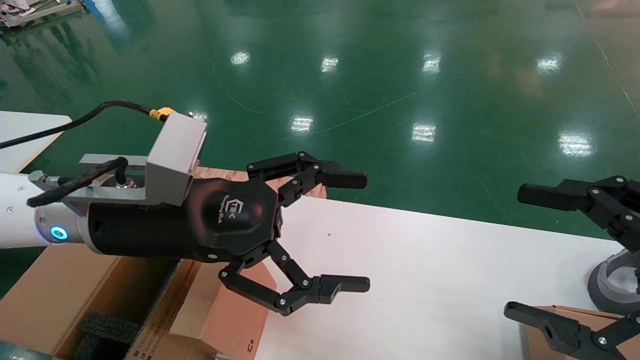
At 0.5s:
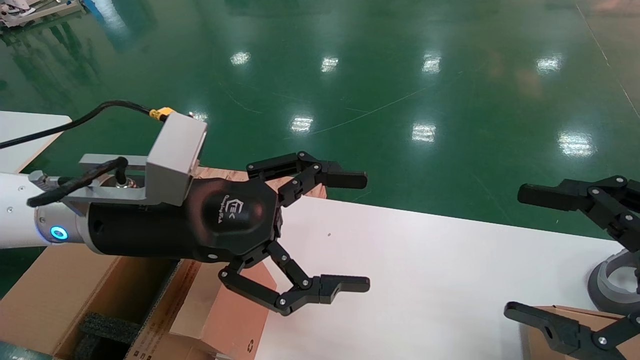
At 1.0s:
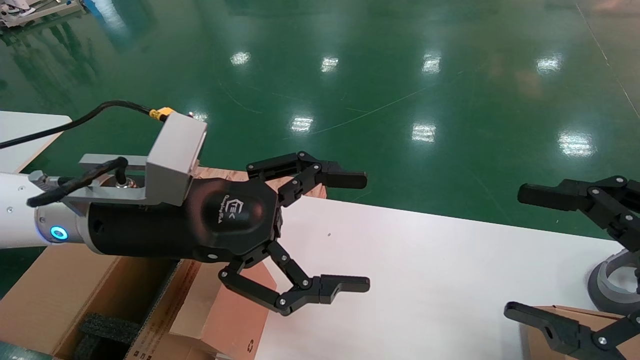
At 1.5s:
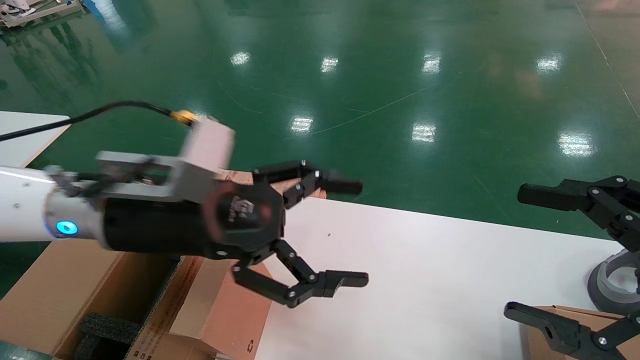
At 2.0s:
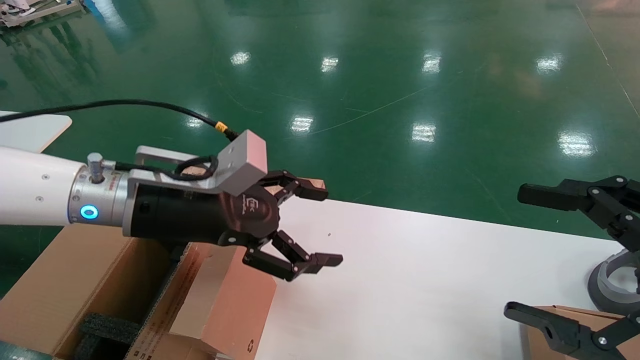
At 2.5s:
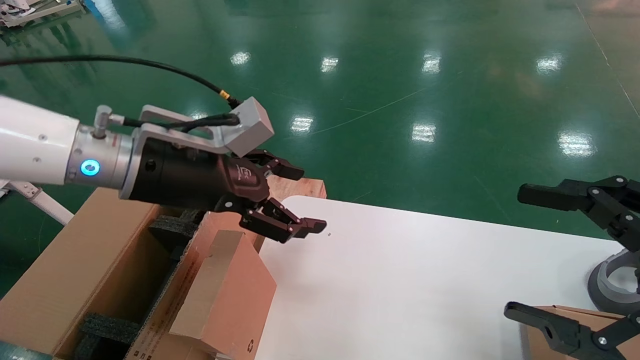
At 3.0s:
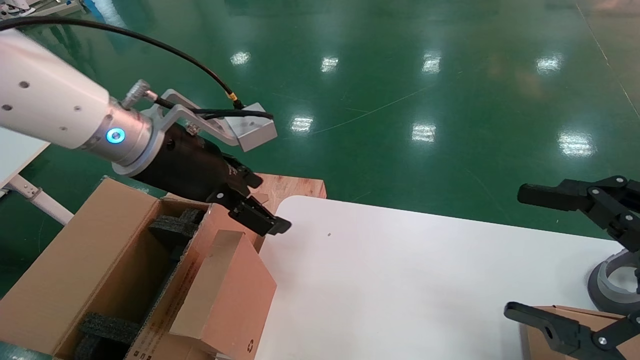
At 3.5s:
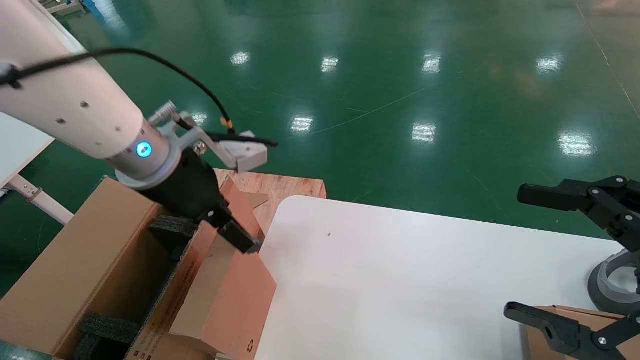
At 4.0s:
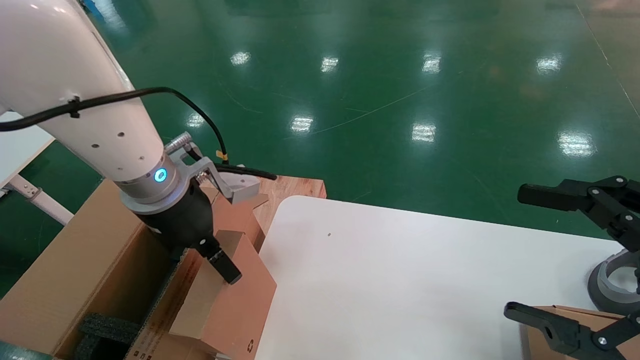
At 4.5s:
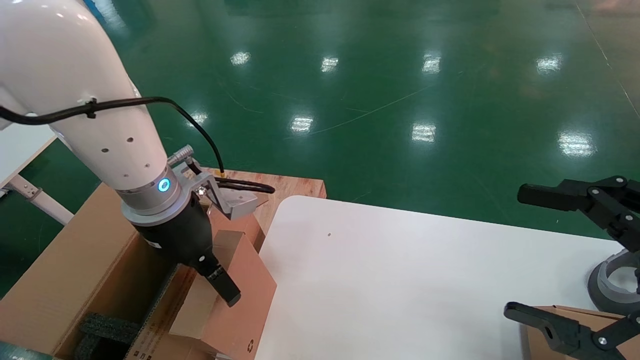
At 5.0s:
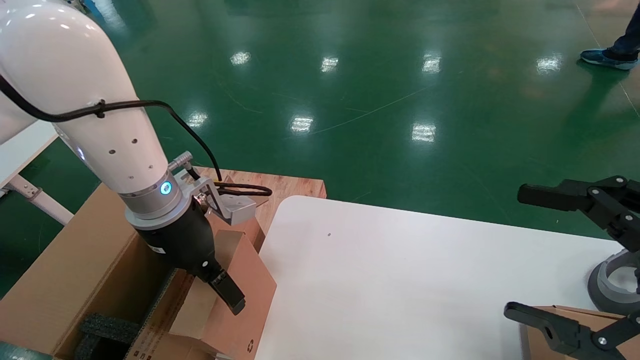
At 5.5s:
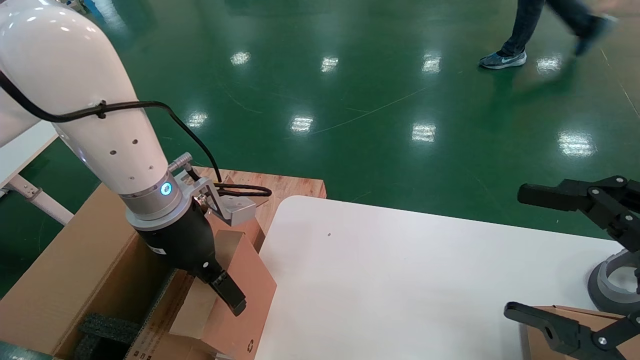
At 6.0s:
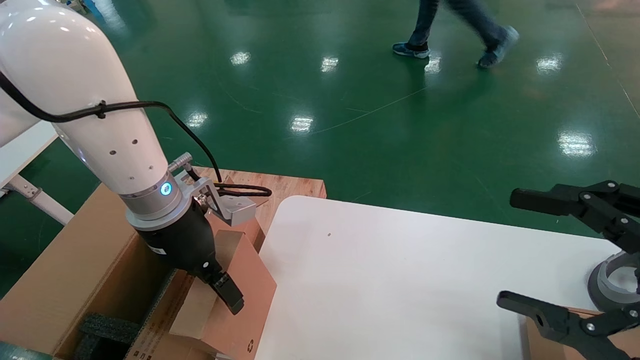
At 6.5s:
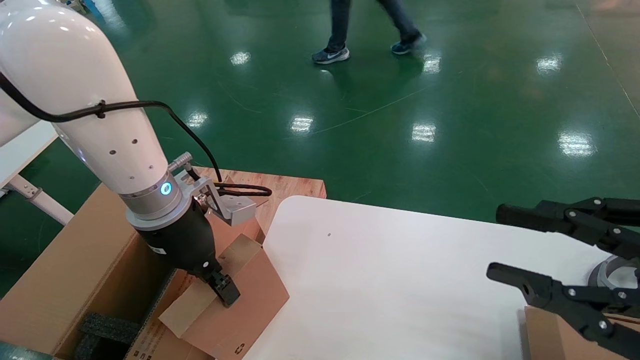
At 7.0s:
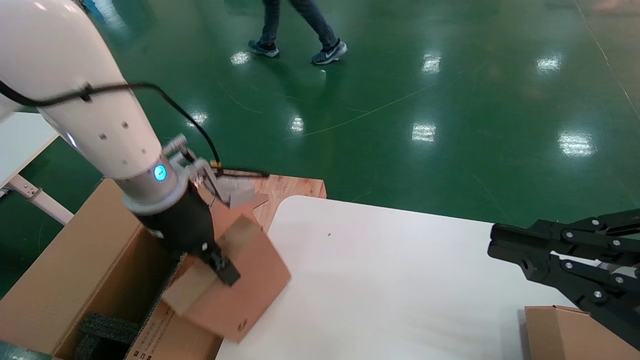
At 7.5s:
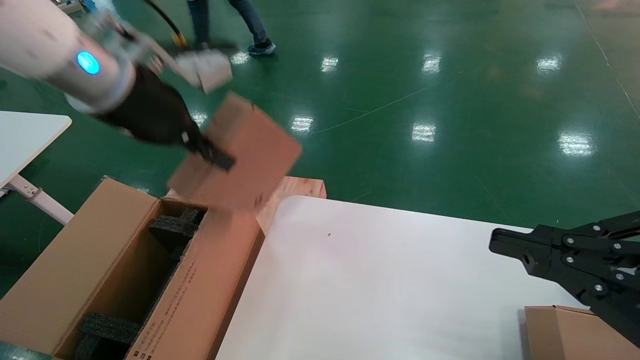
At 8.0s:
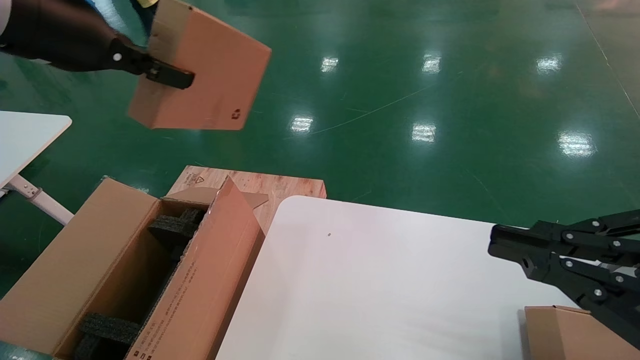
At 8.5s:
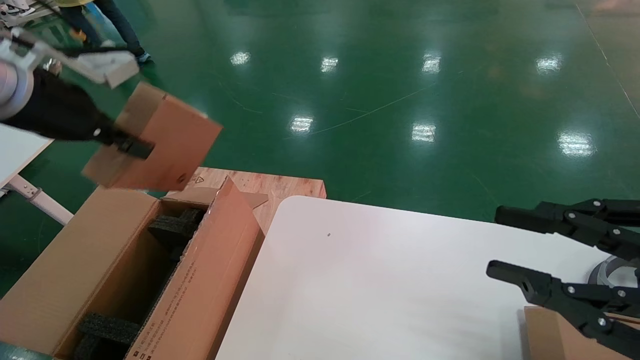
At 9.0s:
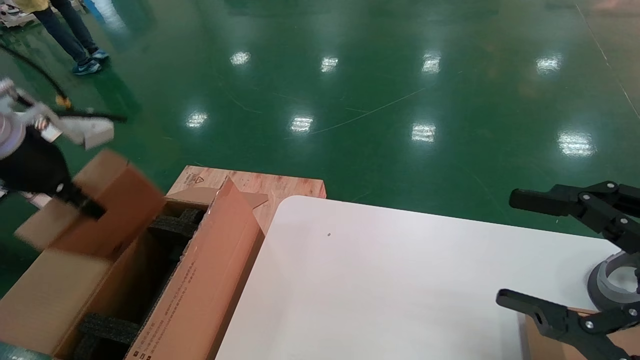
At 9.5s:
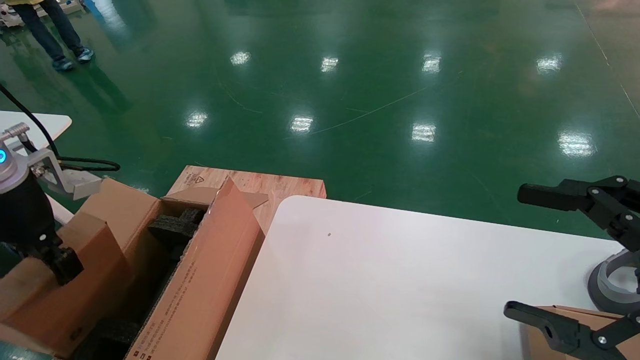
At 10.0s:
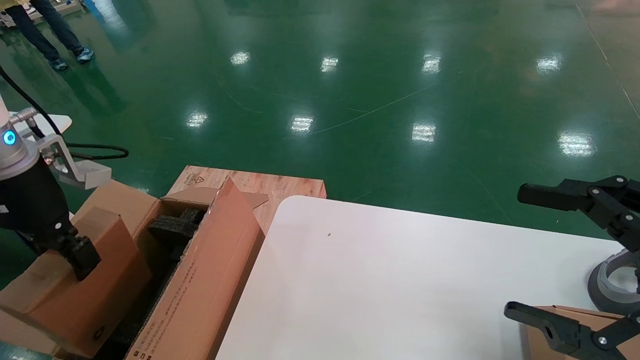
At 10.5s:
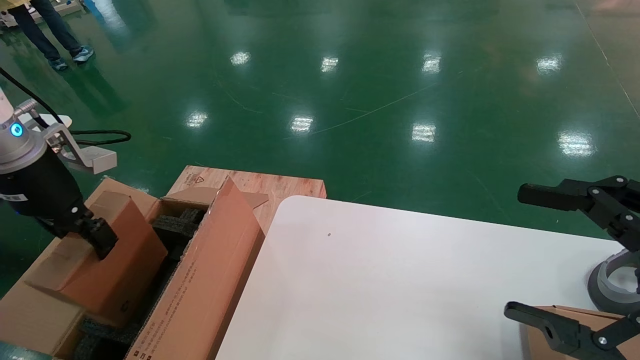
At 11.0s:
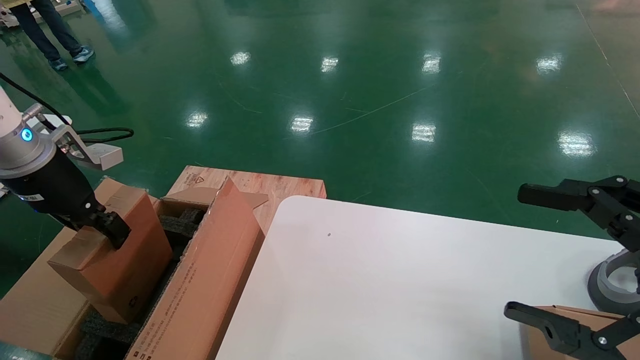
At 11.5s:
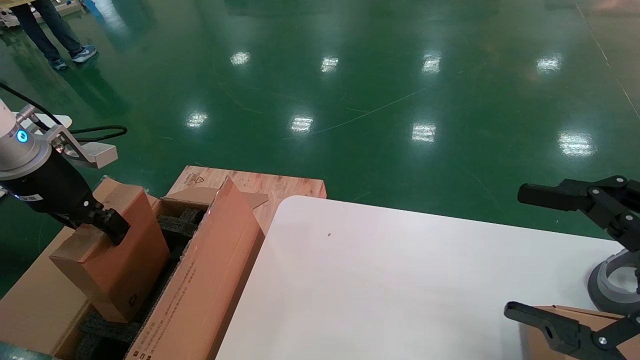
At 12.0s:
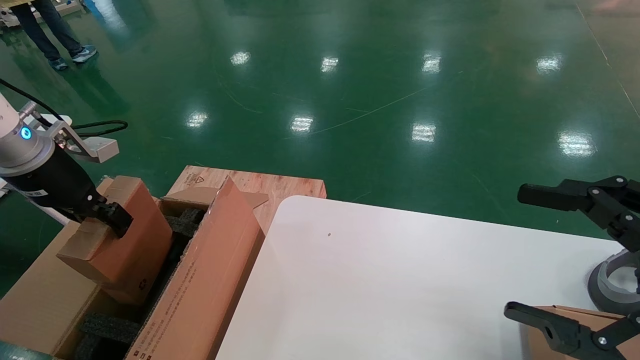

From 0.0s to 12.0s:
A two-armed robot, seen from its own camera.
Task of the whole recording: put the box on the table into the big box.
Step, from 0.0s to 6.5s: Grasp the paper box.
From 4.0s to 6.0s: The grippers stay close to where they were, moving slightly.
From 6.0s to 8.0s: The right gripper closes its fingers. Meanwhile the left gripper heads upward and to the left, covering roughly 20 cm, and closes its fingers.
From 8.0s to 10.0s: The right gripper opens. The left gripper is displaced downward and to the left by roughly 15 cm.
From 10.0s to 12.0s: The left gripper shifts by roughly 5 cm.

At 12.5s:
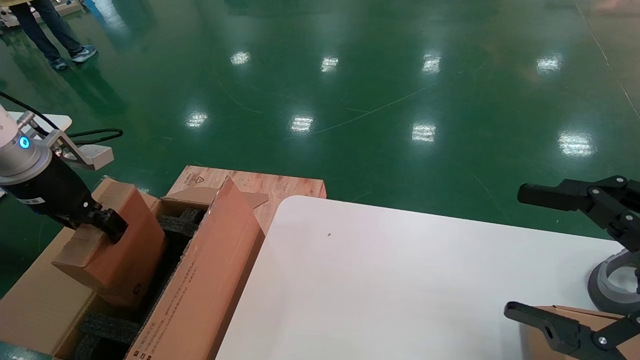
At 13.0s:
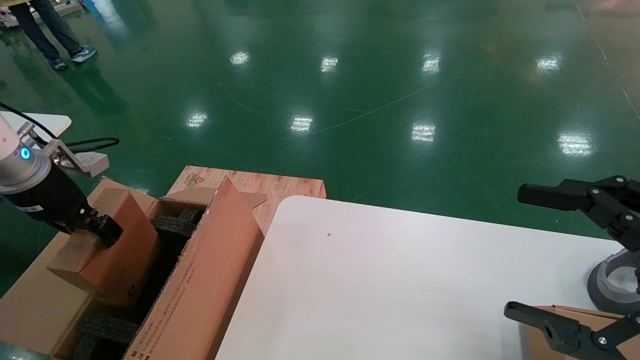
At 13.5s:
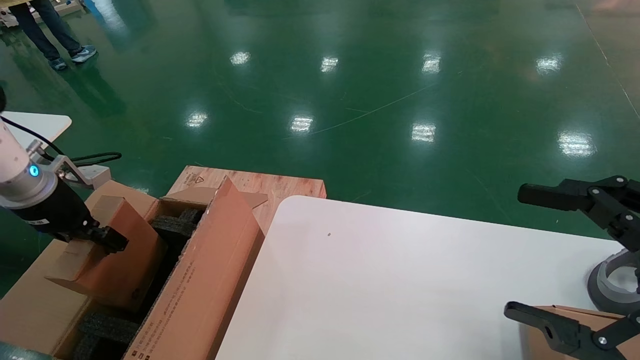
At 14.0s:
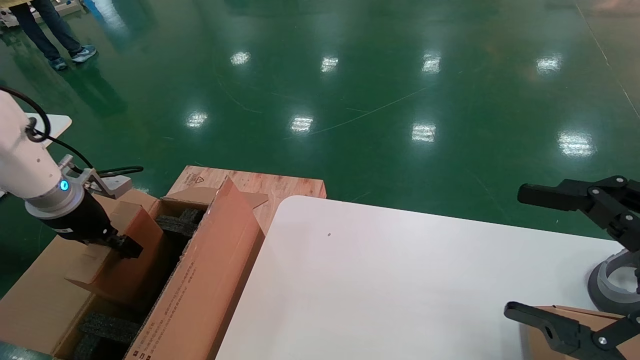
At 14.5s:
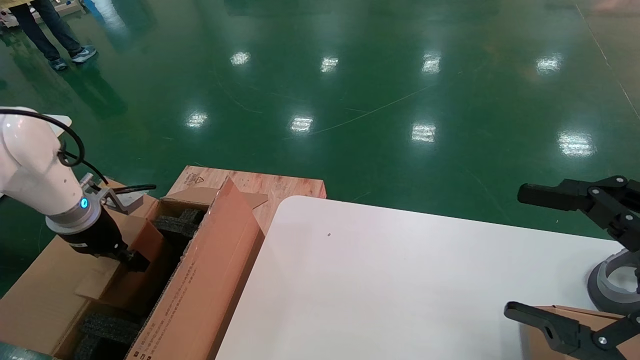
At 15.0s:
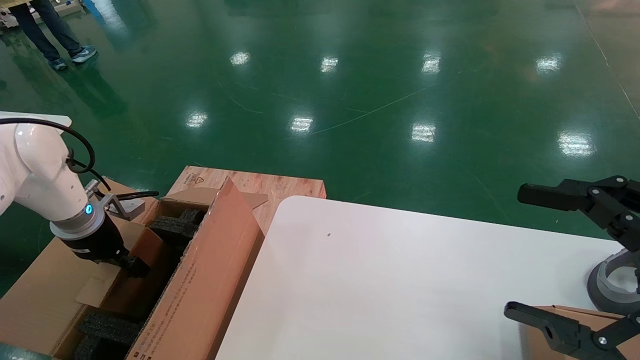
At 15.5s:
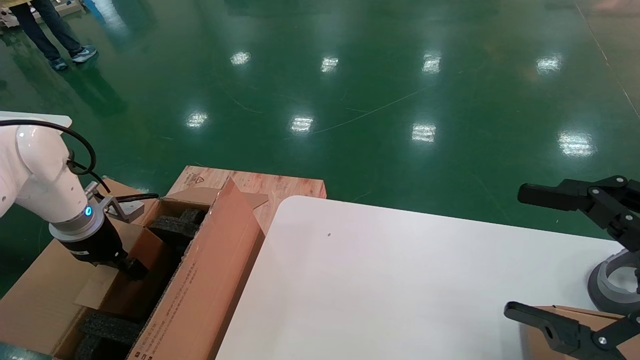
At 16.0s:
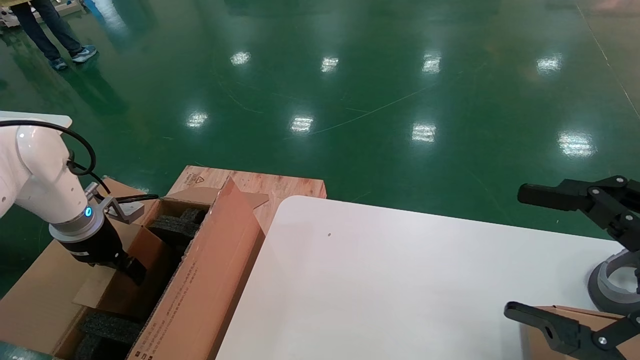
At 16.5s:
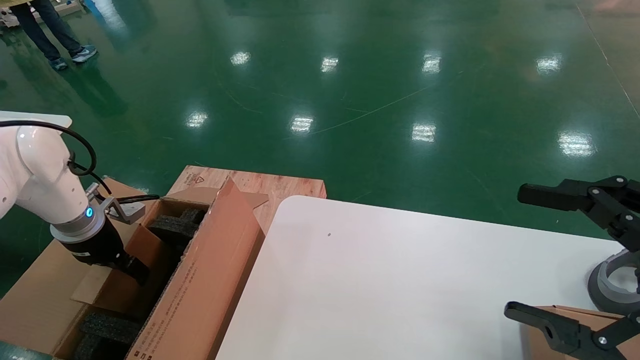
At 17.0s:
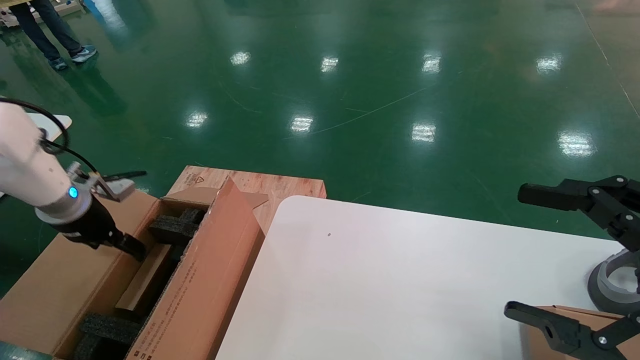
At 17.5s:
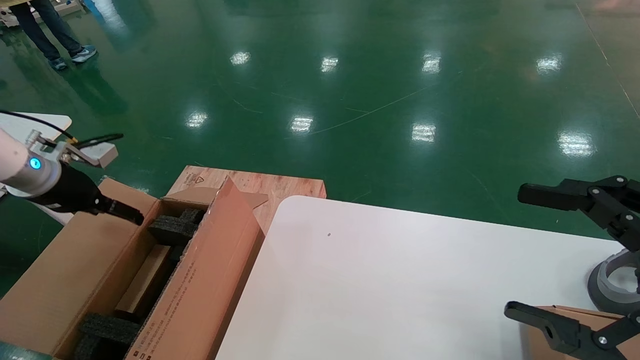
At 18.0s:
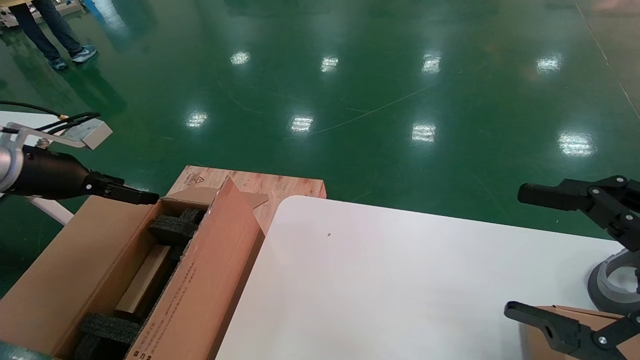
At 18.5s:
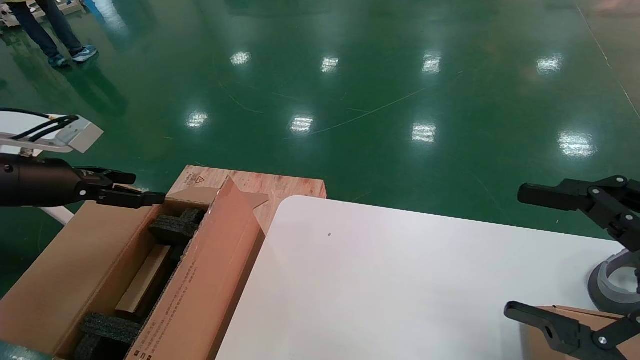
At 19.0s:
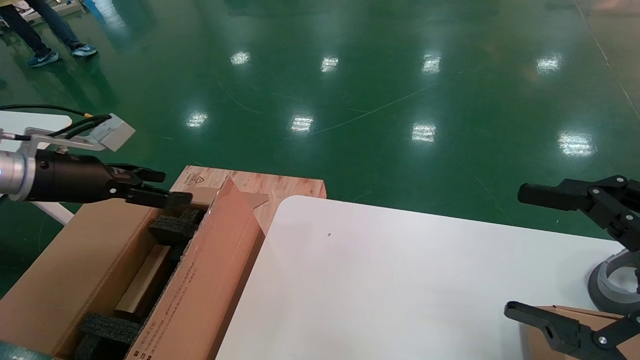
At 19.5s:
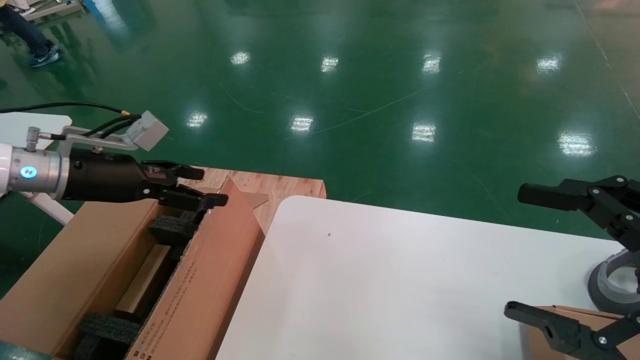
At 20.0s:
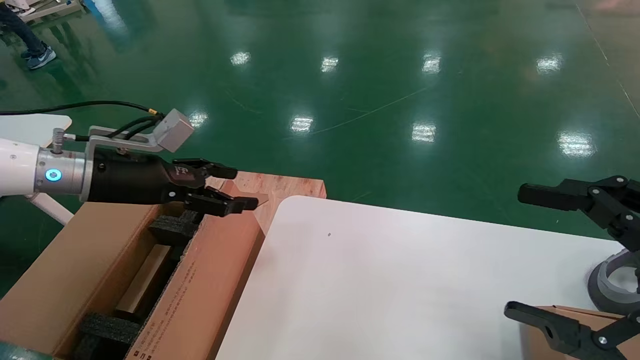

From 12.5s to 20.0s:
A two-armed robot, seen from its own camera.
Task of the whole recording: put the box on the table into the big box.
Step, from 12.5s to 17.0s: Place the paper box in the another big box.
From 12.5s to 14.5s: The left gripper is displaced downward by approximately 10 cm.
From 14.5s to 16.5s: The left gripper opens up.
From 16.5s to 18.0s: The left gripper heads upward and backward, covering about 10 cm.
From 18.0s to 20.0s: The left gripper shifts about 15 cm to the right.
